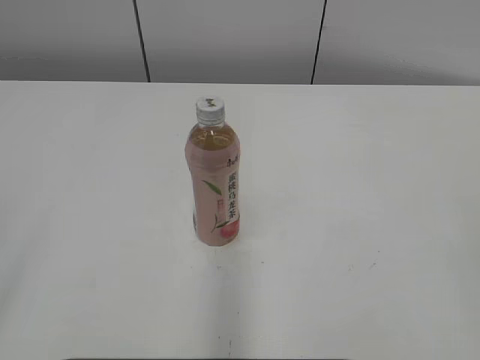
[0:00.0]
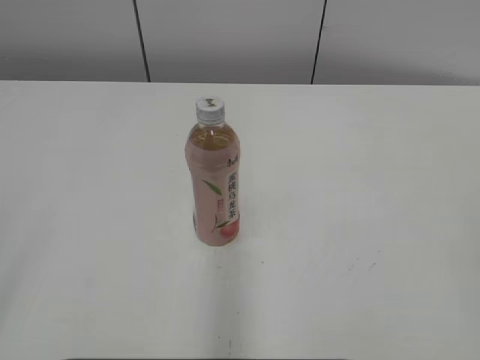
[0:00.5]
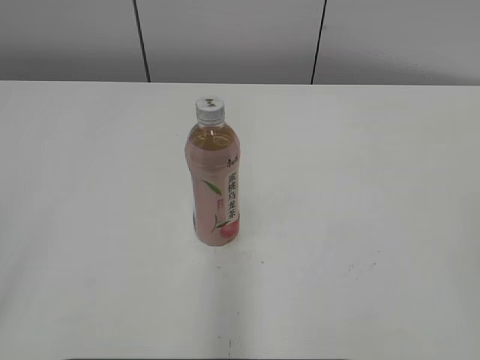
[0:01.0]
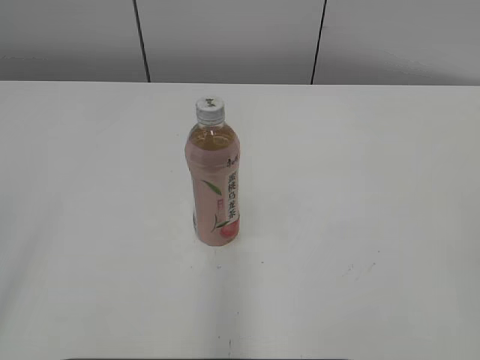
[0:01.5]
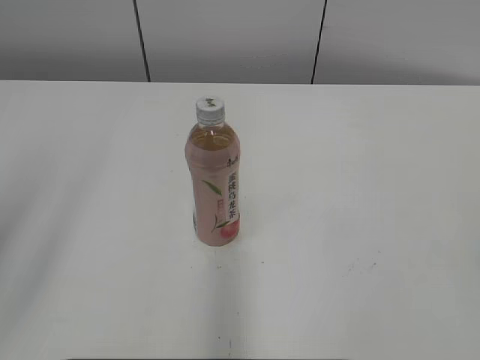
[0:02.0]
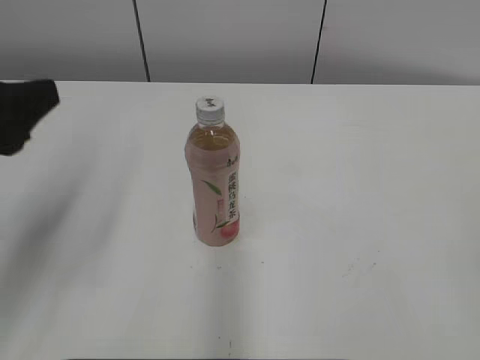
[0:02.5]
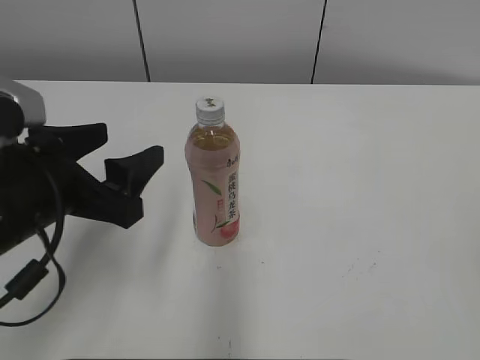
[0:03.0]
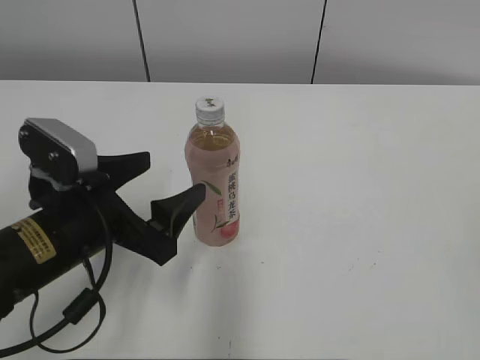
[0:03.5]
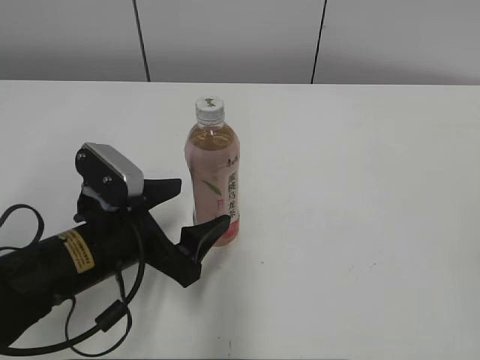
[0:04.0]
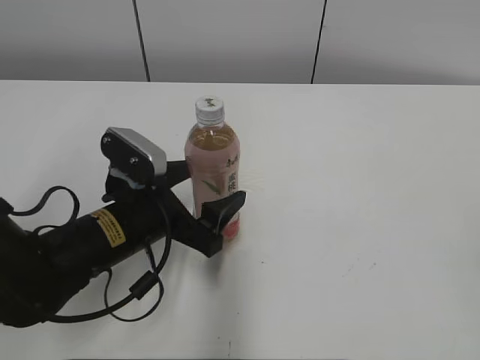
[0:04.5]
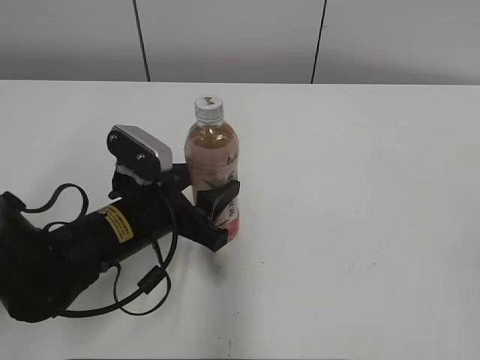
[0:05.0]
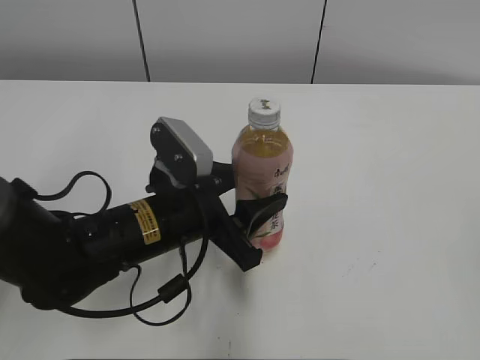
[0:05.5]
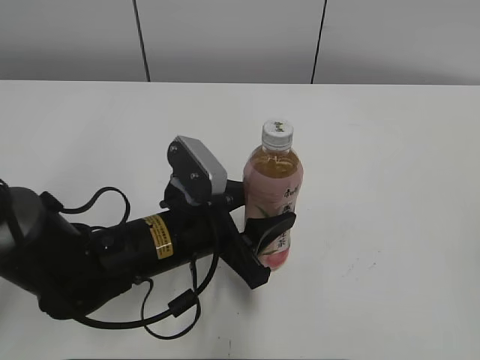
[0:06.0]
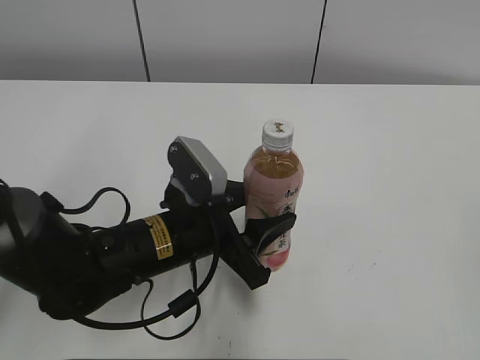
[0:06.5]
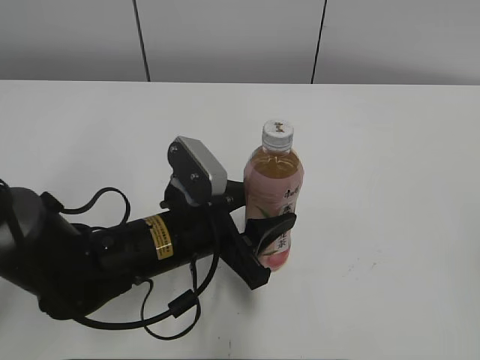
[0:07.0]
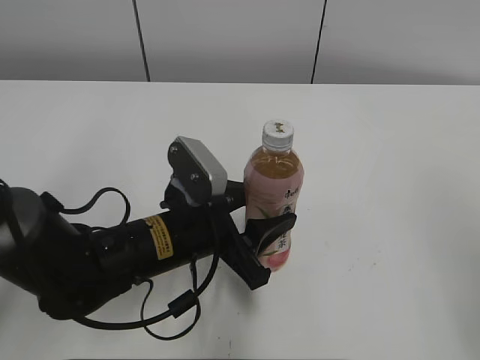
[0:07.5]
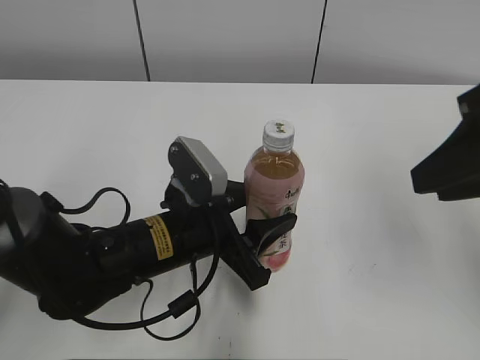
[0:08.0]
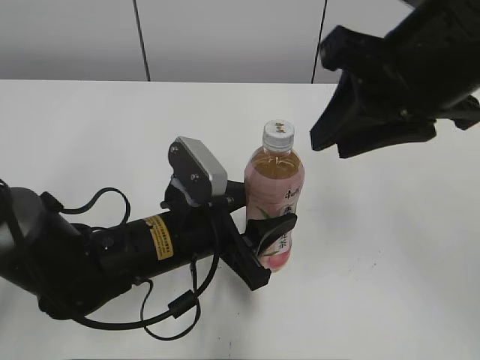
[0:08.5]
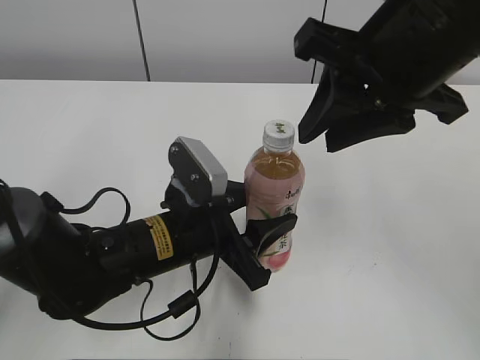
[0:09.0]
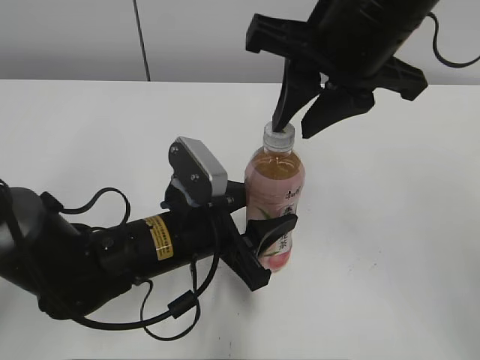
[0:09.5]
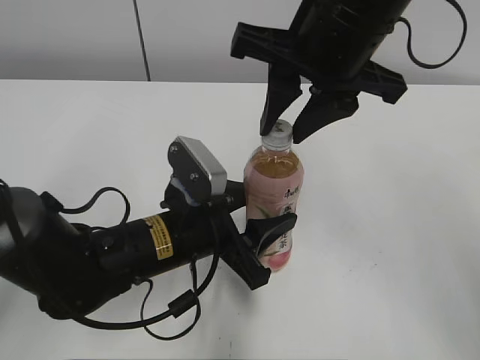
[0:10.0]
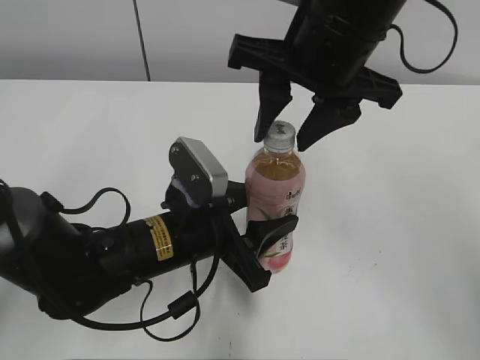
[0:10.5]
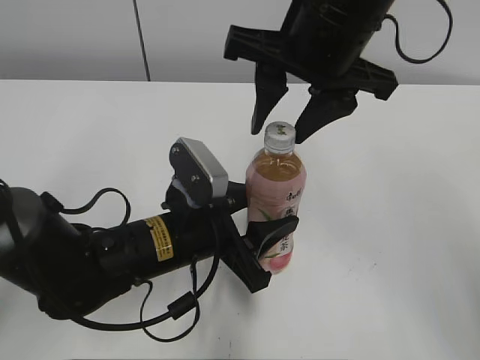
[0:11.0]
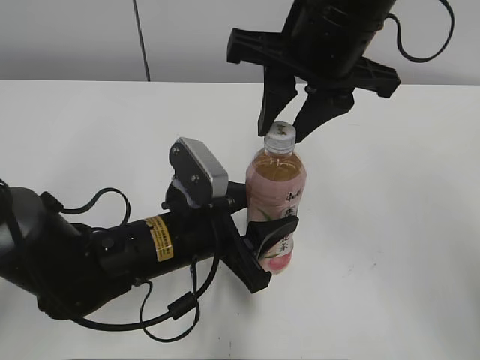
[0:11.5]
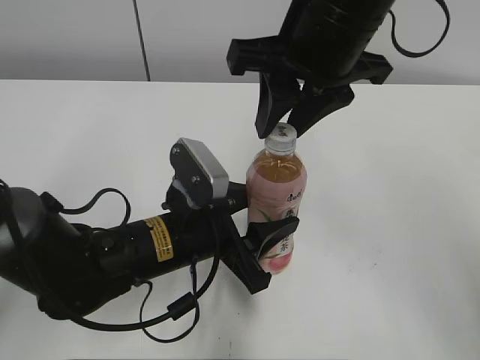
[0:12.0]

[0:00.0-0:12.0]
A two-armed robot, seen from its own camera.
Step, 0:00.0 to 0:04.5: Grab the Peach Oolong Tea with the left hand.
Step, 0:05.5 to 0:09.5: Move the Peach Oolong Tea from left to right.
0:02.0 to 0:04.0: The left gripper travels downward, to the right and forward by approximately 30 cm, and opens.
0:04.0 to 0:06.0: The left gripper is displaced to the right by approximately 5 cm, and closes.
0:06.0 to 0:08.0: The right gripper travels forward and to the left by about 20 cm.
0:08.0 to 0:10.0: The right gripper moves to the left and forward, approximately 15 cm.
0:10.0 to 0:12.0: The grippers move only a little.

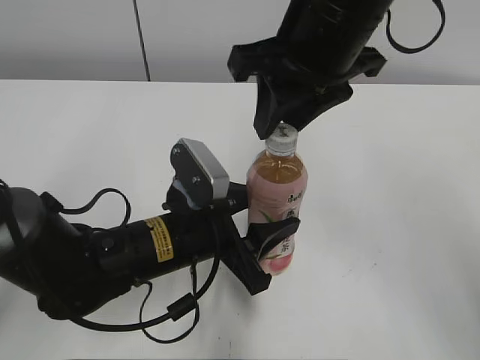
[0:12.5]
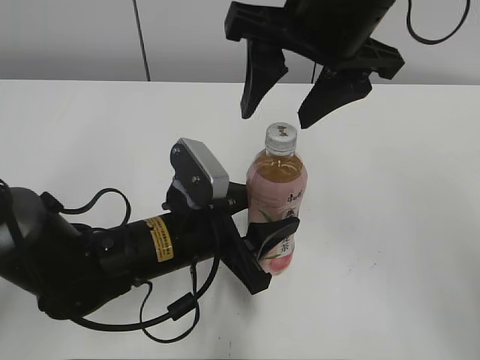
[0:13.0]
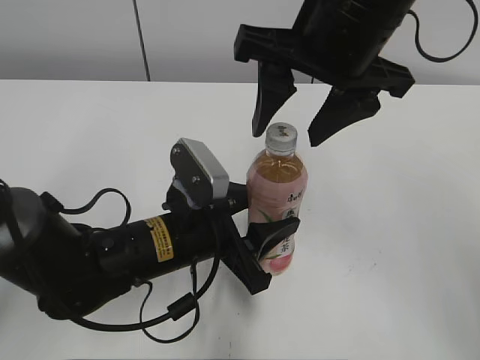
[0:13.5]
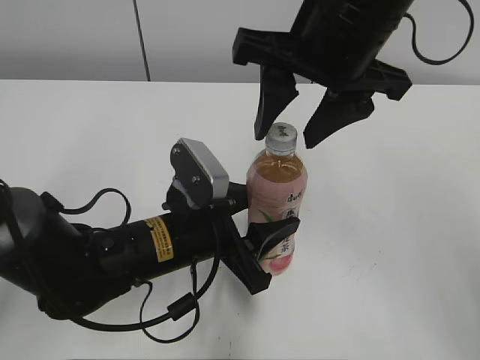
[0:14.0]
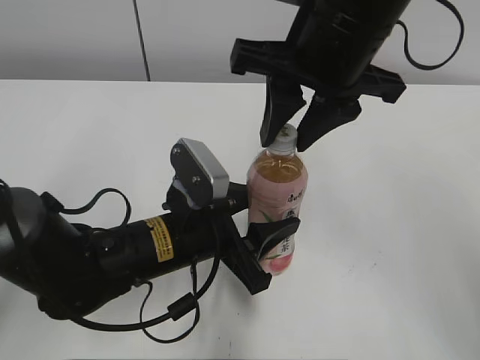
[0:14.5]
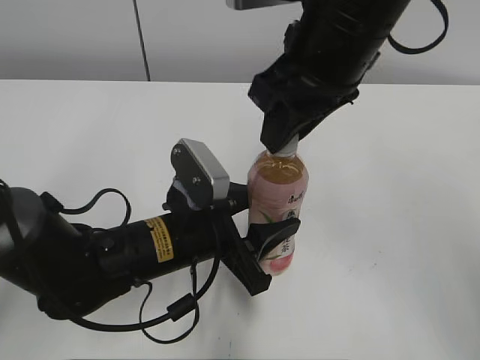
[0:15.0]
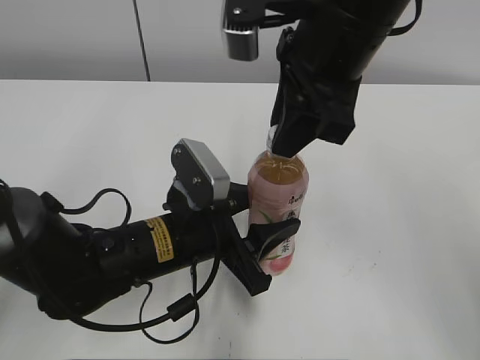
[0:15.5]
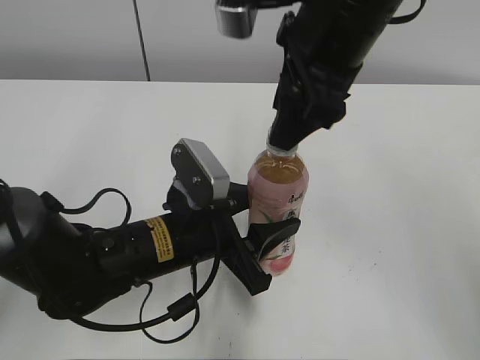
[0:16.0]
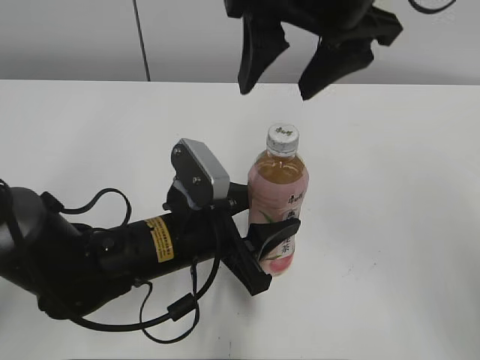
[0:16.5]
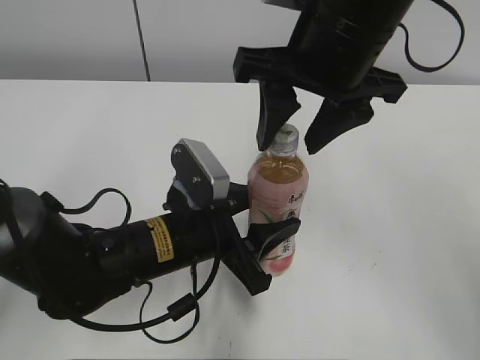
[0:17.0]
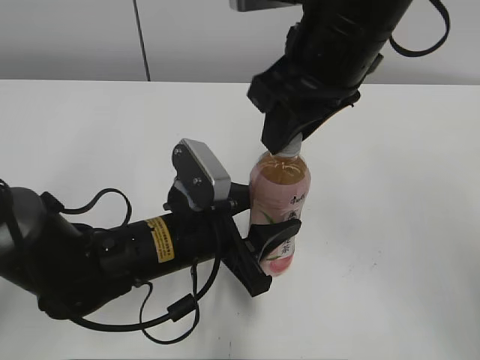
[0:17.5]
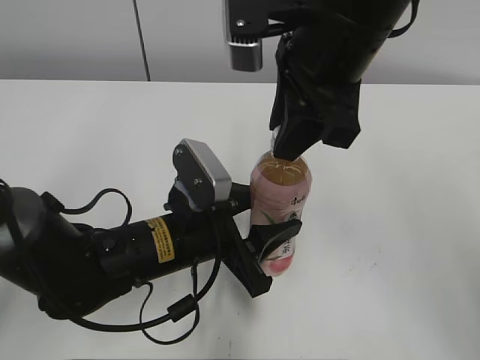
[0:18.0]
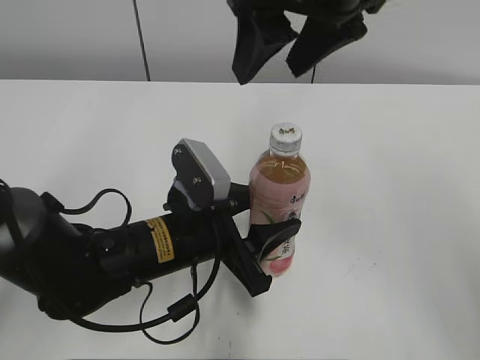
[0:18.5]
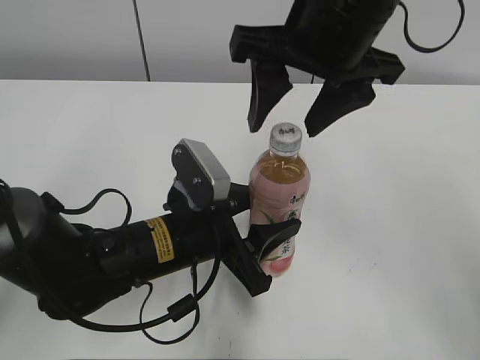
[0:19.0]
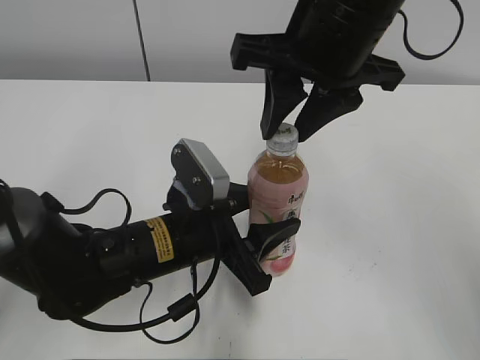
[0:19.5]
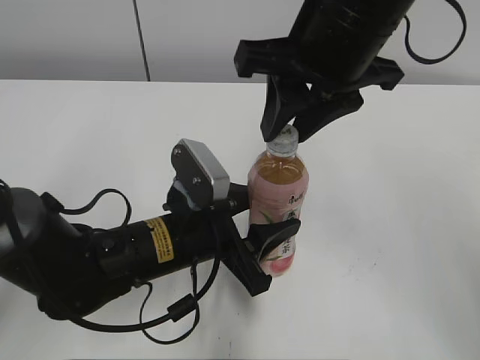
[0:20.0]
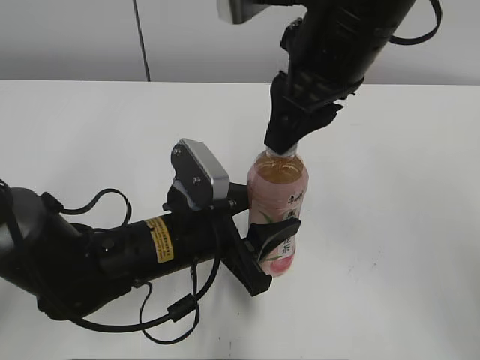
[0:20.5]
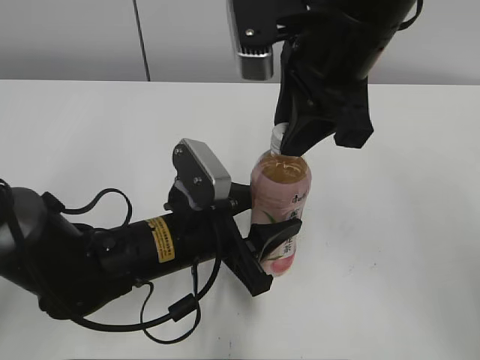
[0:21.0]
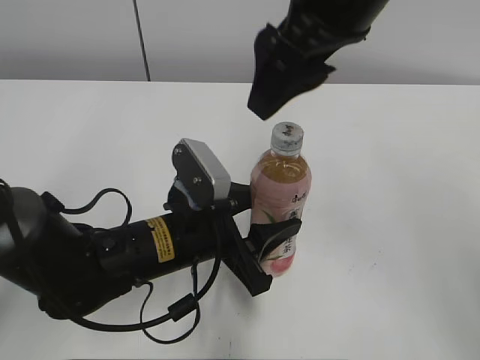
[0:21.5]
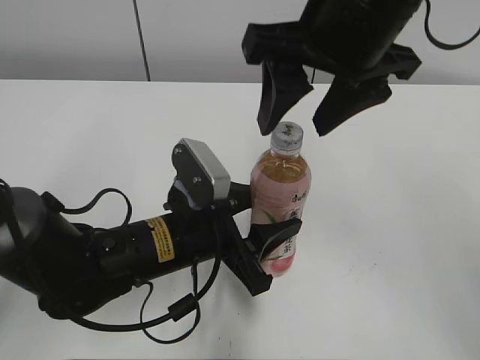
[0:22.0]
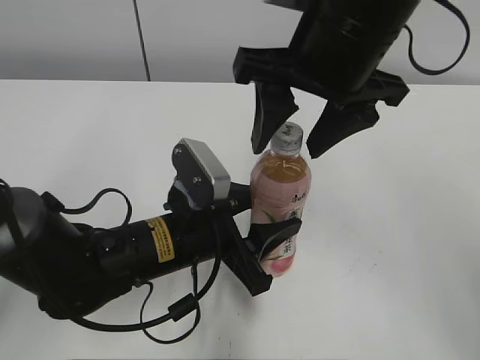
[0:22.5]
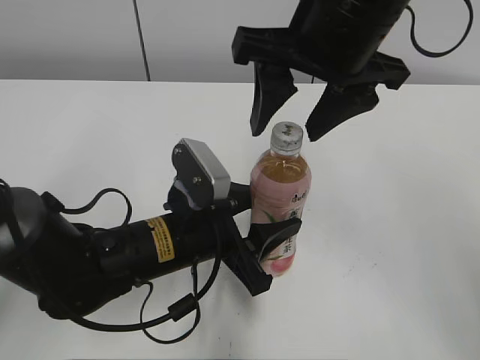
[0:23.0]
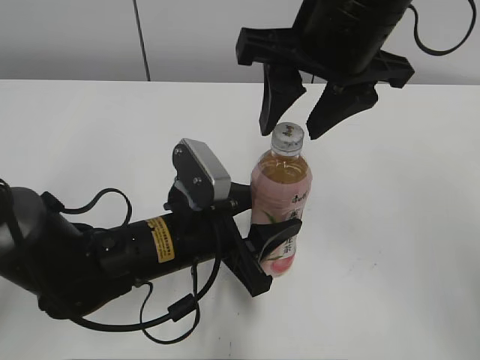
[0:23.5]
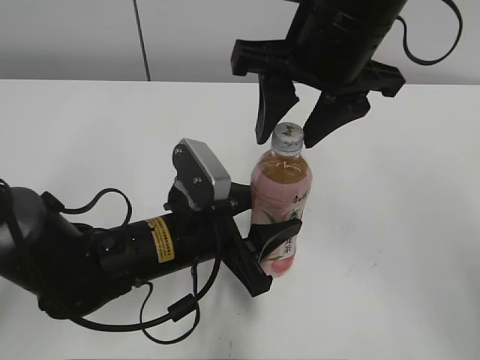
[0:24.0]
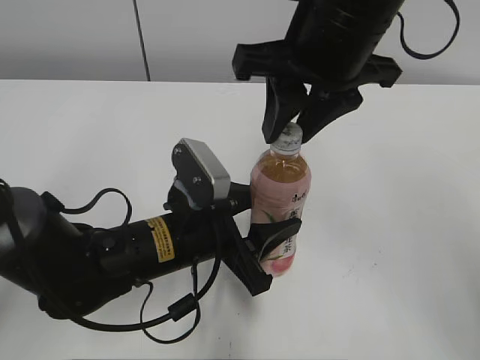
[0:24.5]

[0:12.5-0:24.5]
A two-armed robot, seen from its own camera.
0:12.5 to 0:14.5: The right gripper opens and closes again.
0:14.5 to 0:16.5: The right gripper opens up.
0:16.5 to 0:18.5: The right gripper closes, then opens again.
0:18.5 to 0:20.5: The right gripper ends up about 5 cm from where it was, and closes its fingers.
0:20.5 to 0:22.5: The right gripper opens its fingers.
0:22.5 to 0:24.5: The right gripper closes.

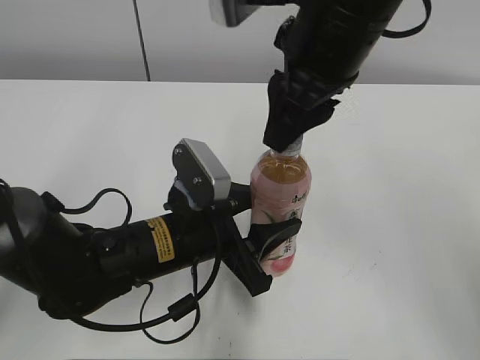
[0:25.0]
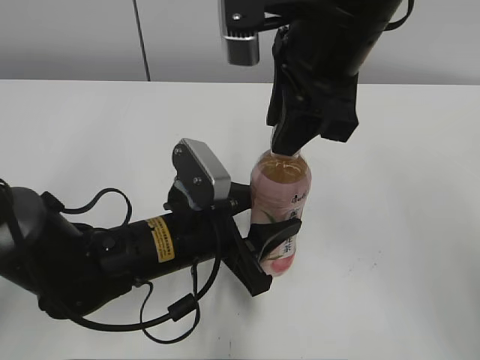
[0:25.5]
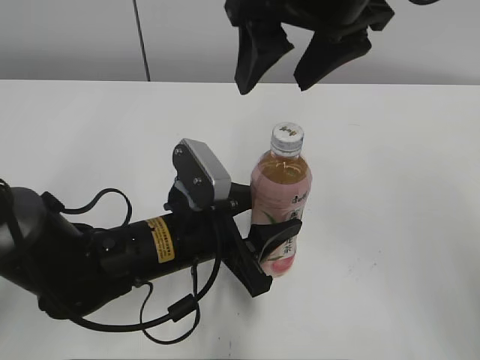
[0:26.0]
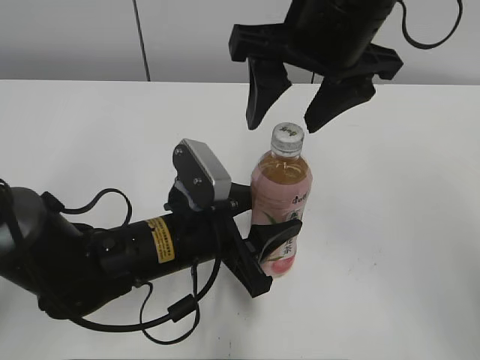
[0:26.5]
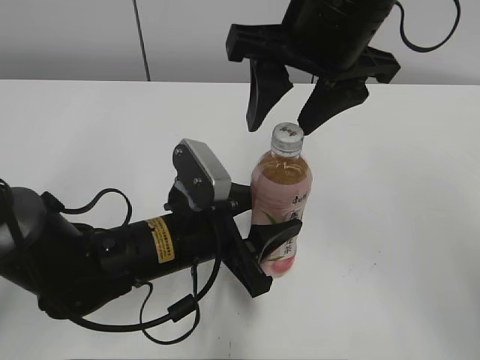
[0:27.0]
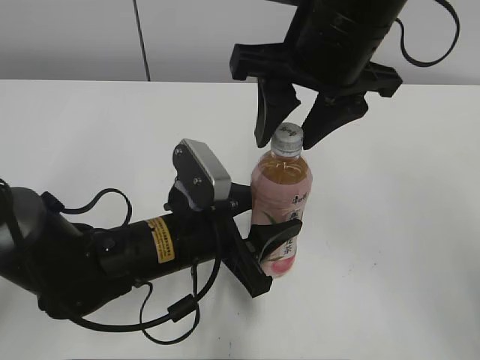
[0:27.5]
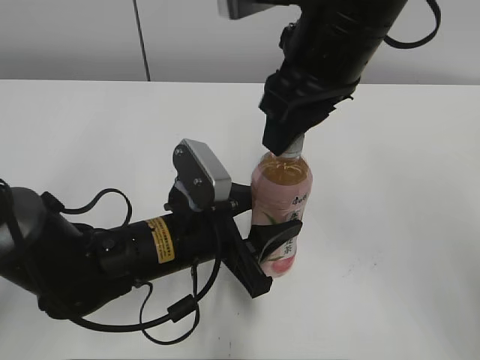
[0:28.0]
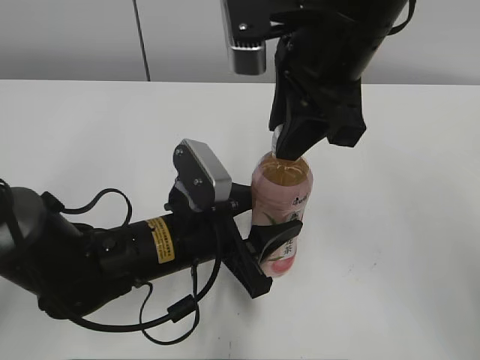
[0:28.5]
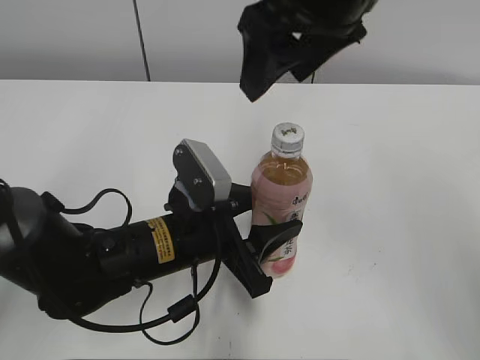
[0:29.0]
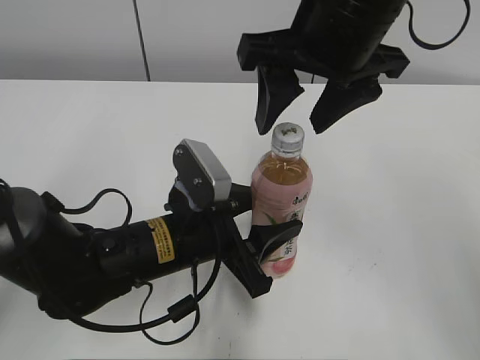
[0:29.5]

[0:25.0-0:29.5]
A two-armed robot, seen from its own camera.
0:25.0 to 0:27.0: The right gripper opens.
0:27.0 to 0:29.5: The right gripper closes, then reopens.
